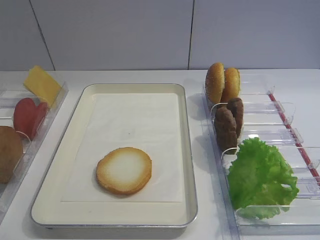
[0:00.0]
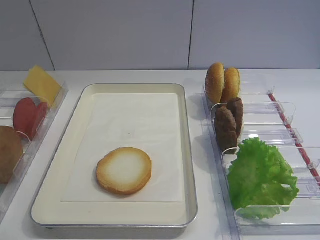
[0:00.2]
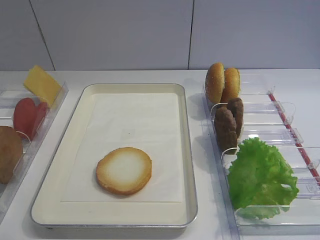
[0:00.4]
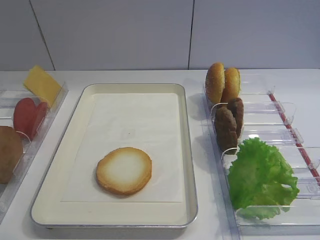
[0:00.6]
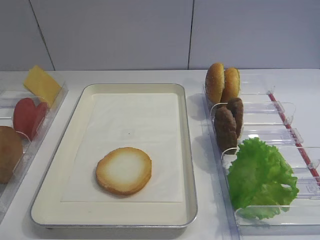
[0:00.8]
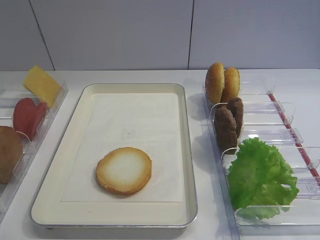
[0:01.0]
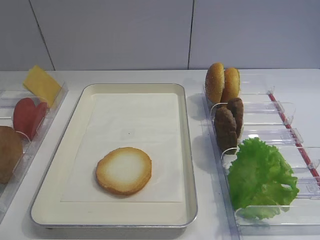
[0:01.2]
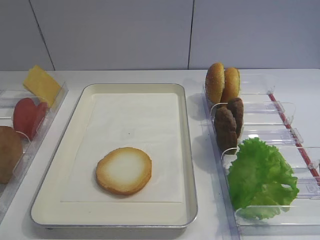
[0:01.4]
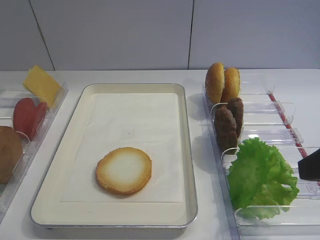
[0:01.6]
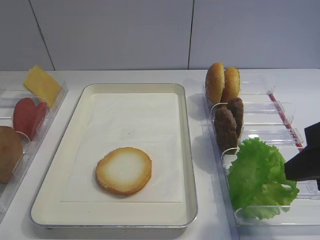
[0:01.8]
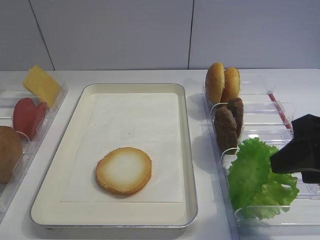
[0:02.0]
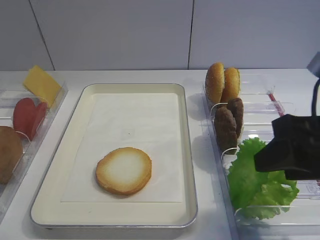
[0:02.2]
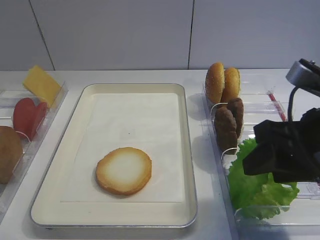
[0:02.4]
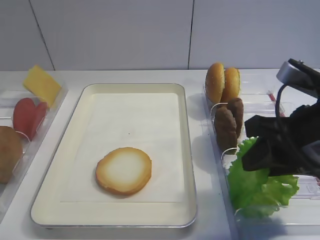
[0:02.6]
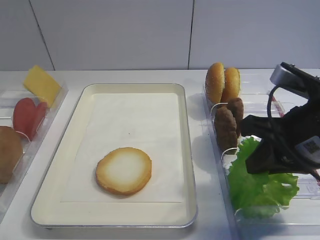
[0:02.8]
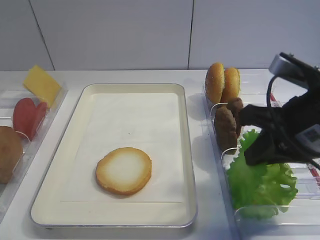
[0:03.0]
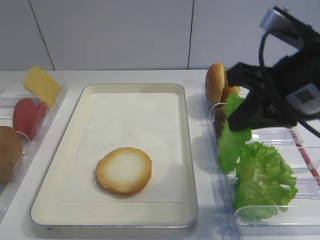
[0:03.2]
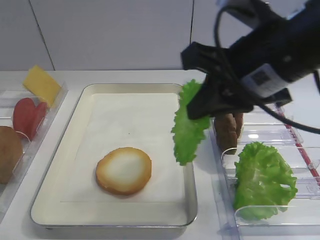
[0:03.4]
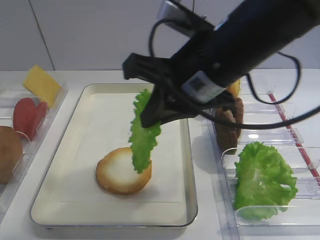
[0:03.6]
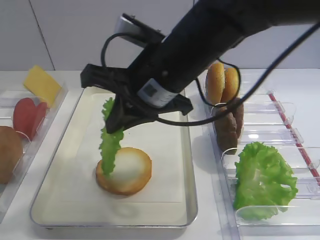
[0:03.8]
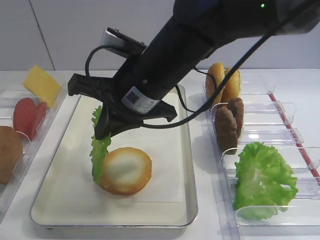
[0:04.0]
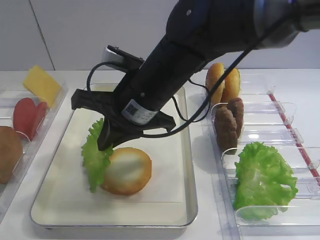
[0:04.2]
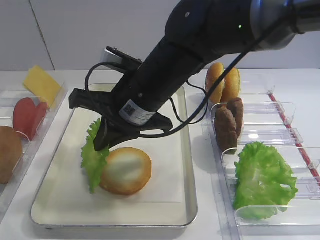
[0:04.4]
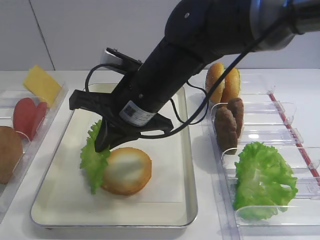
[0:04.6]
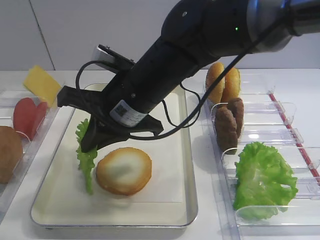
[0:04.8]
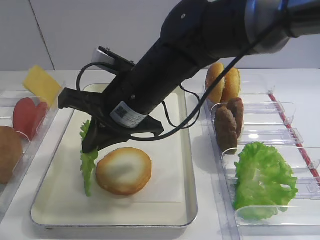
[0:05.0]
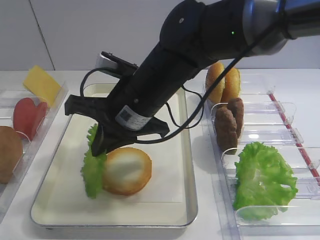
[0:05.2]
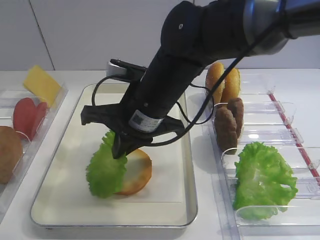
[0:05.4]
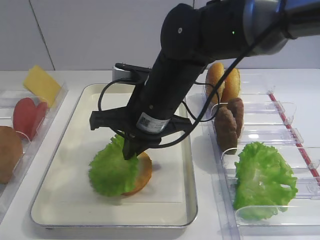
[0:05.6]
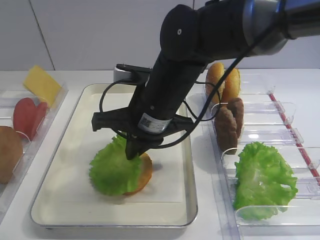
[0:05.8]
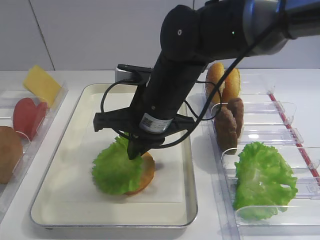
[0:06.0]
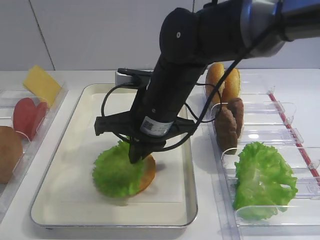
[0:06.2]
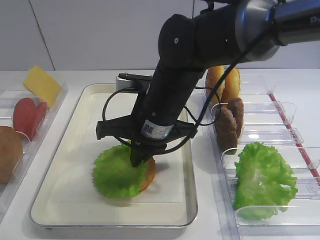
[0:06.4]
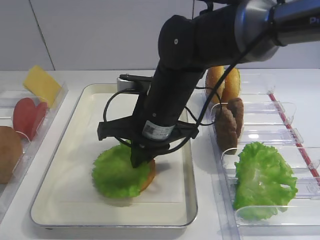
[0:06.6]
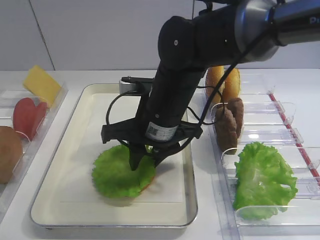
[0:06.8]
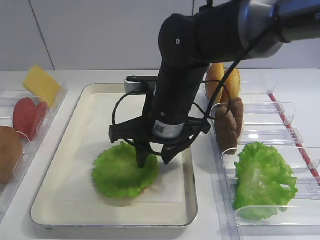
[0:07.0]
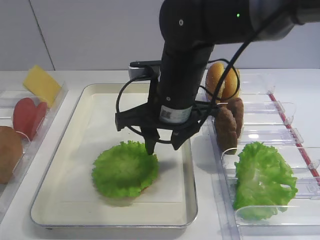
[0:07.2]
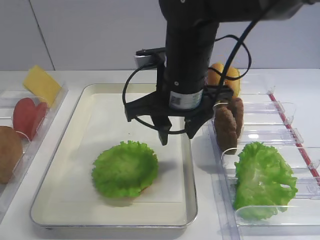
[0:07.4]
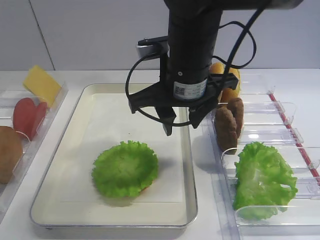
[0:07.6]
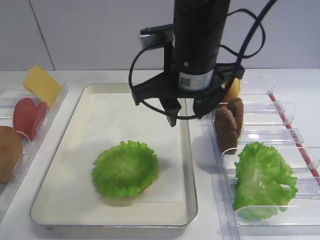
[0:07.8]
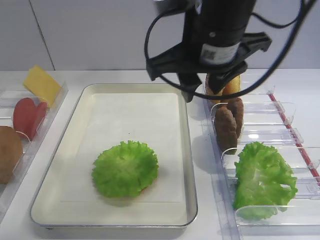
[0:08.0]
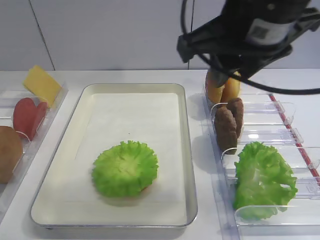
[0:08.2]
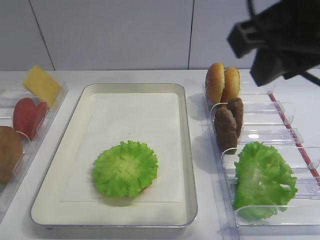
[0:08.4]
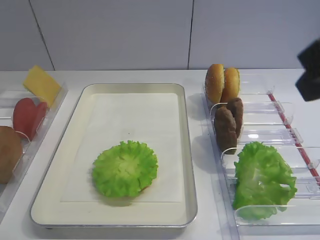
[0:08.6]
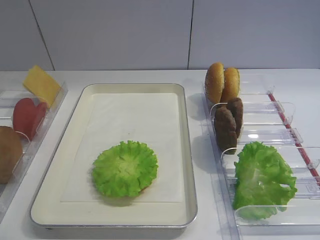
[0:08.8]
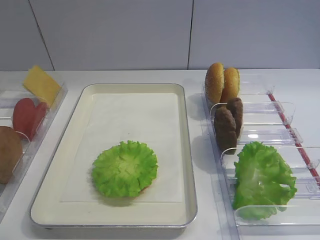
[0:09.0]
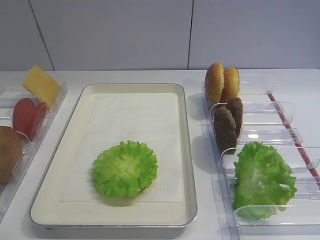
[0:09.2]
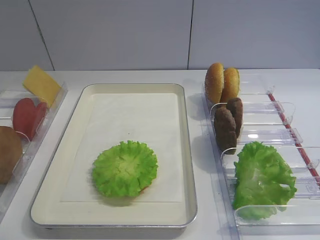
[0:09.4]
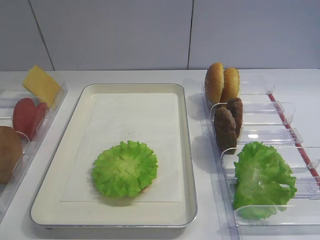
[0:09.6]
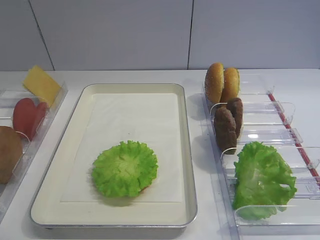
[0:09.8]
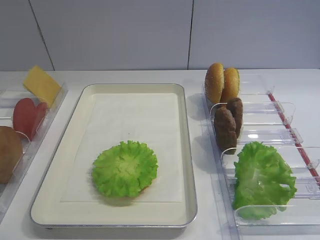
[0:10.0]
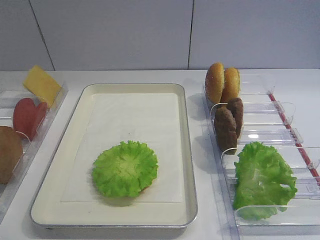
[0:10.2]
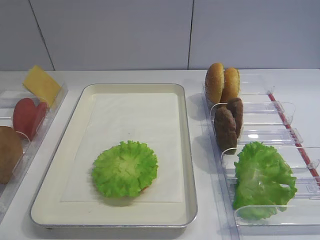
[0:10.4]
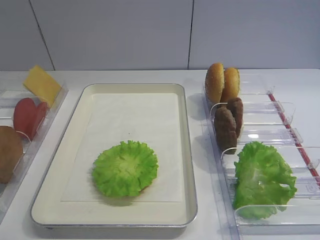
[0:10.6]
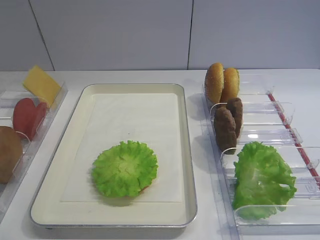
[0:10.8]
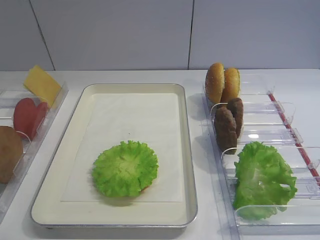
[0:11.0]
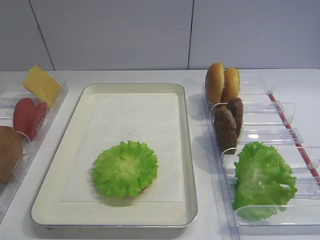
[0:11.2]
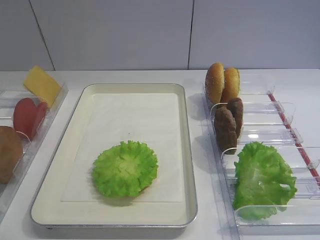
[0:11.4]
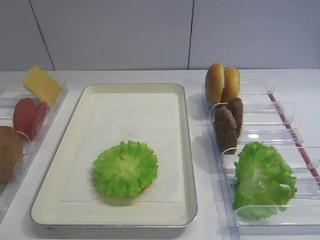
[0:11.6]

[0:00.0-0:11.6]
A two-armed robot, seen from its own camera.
Step, 0:00.0 to 0:03.0: Pick up the lettuce leaf with the right gripper.
Step, 0:03.2 to 0:07.0: Place the lettuce leaf on the bread slice with the right gripper.
0:01.4 to 0:02.8: The right gripper is displaced forward and downward by about 10 cm, and closes its fingers.
0:02.8 to 0:04.4: The right gripper heads to the left and forward, covering about 20 cm.
0:04.4 to 0:05.8: The grippers make only small movements.
0:05.8 to 0:07.2: The right gripper opens its fingers.
0:07.2 to 0:08.8: The right gripper goes some 30 cm to the right, backward and upward.

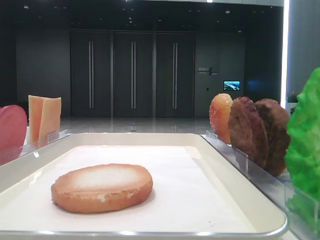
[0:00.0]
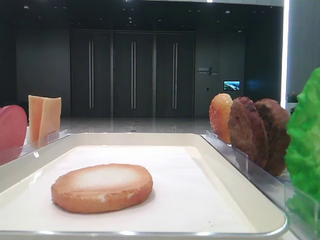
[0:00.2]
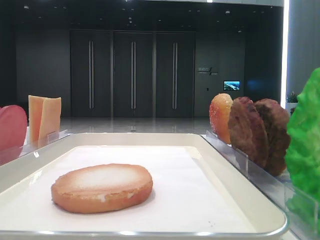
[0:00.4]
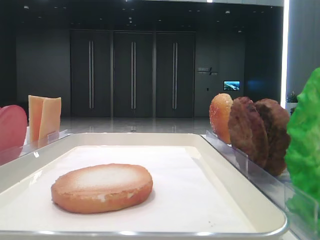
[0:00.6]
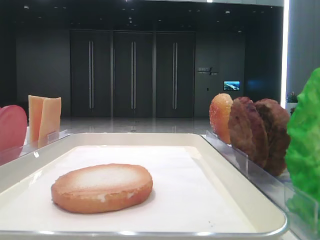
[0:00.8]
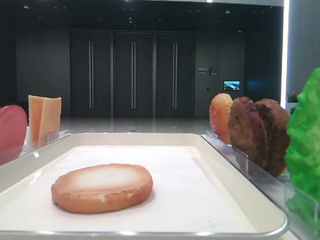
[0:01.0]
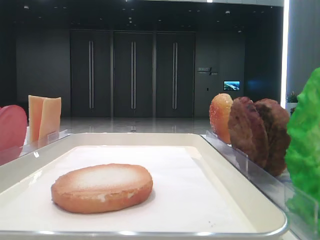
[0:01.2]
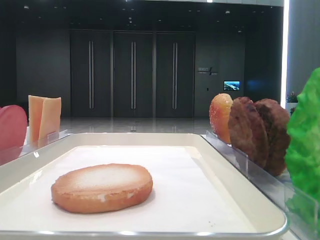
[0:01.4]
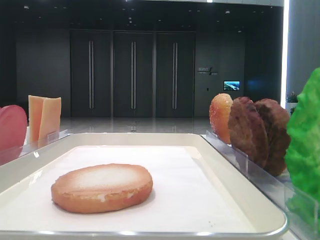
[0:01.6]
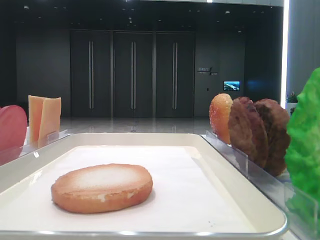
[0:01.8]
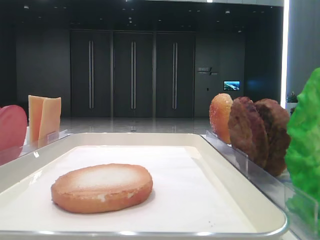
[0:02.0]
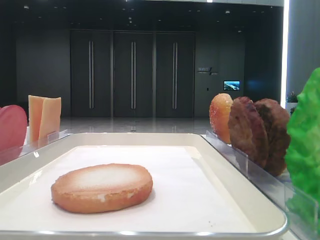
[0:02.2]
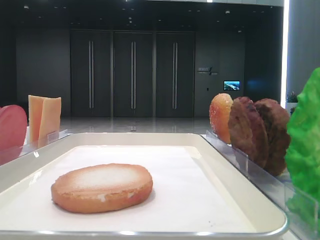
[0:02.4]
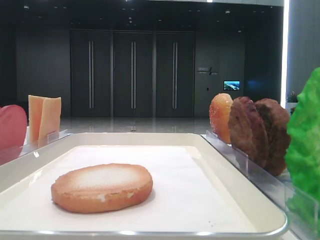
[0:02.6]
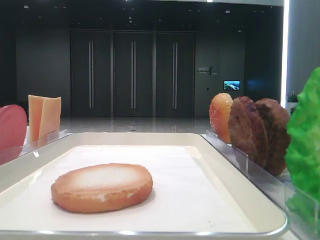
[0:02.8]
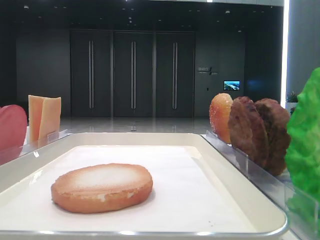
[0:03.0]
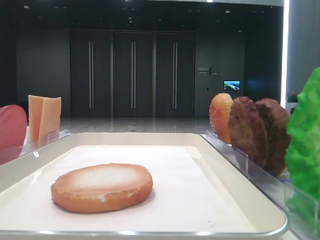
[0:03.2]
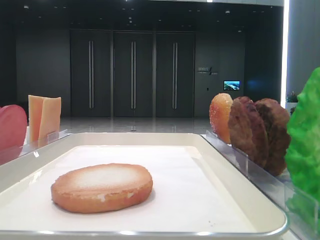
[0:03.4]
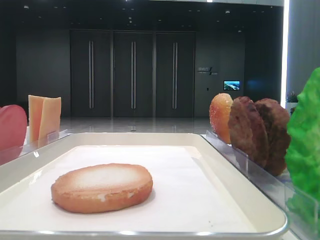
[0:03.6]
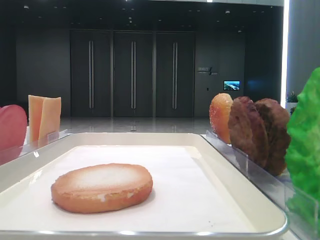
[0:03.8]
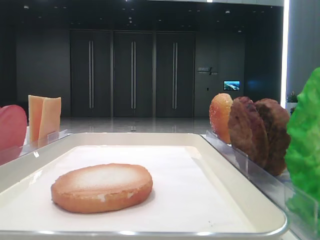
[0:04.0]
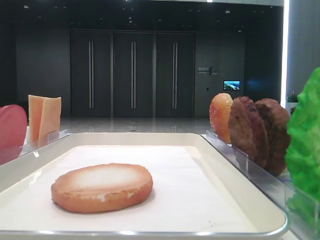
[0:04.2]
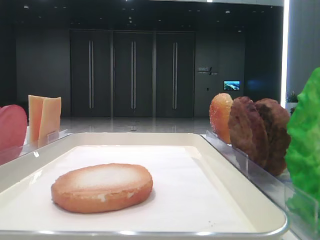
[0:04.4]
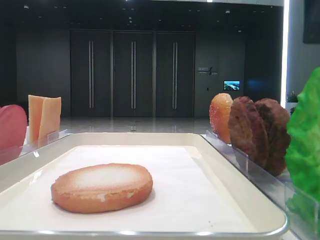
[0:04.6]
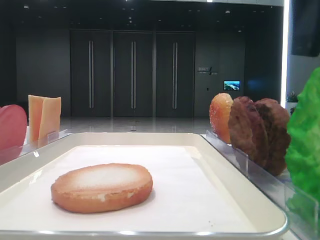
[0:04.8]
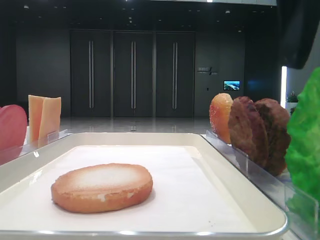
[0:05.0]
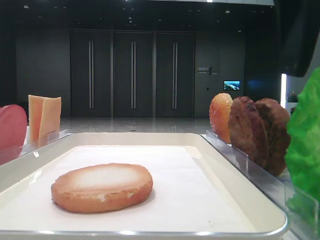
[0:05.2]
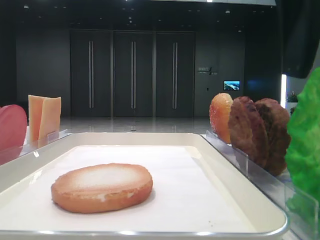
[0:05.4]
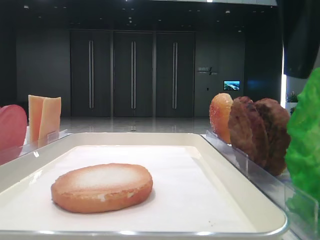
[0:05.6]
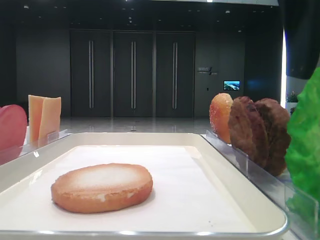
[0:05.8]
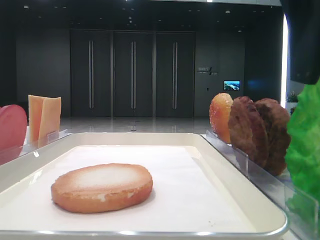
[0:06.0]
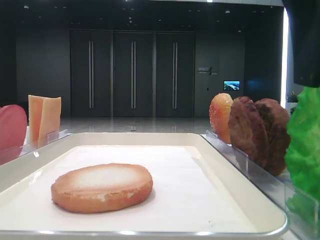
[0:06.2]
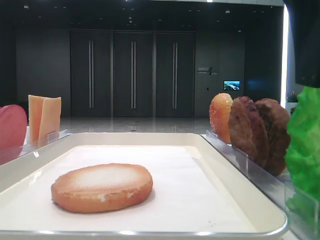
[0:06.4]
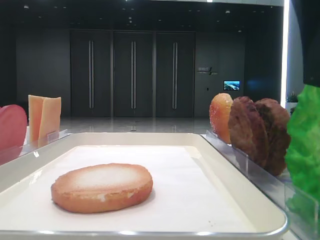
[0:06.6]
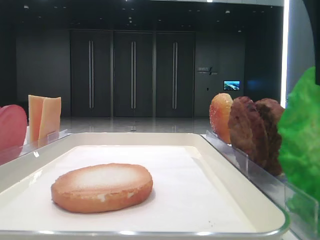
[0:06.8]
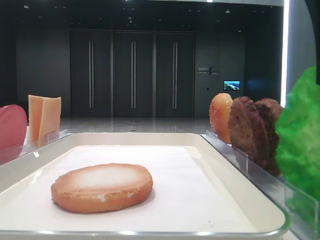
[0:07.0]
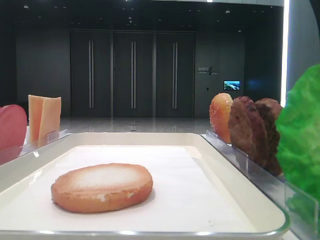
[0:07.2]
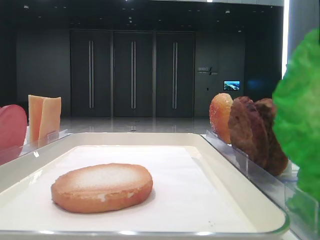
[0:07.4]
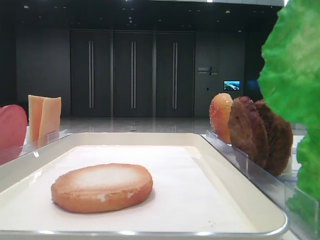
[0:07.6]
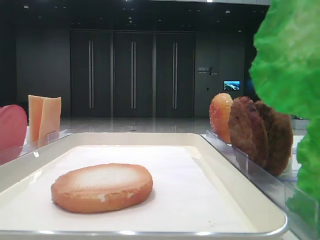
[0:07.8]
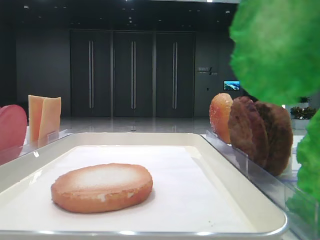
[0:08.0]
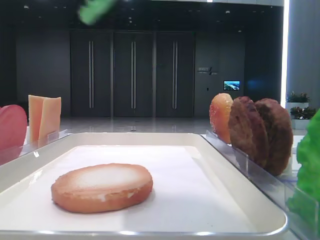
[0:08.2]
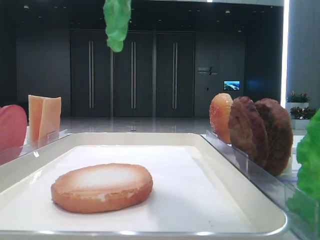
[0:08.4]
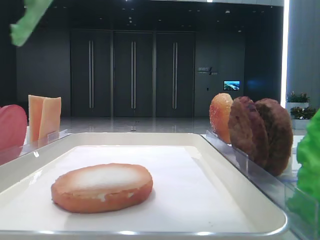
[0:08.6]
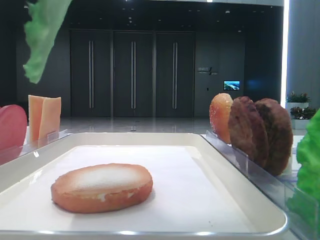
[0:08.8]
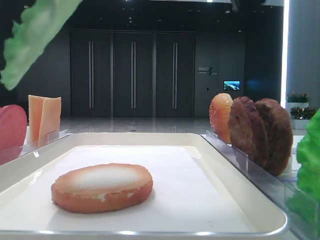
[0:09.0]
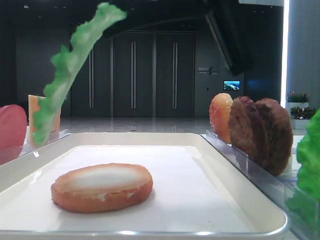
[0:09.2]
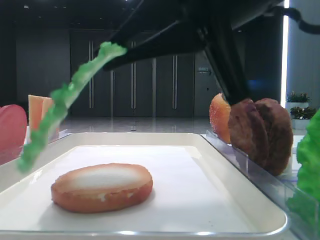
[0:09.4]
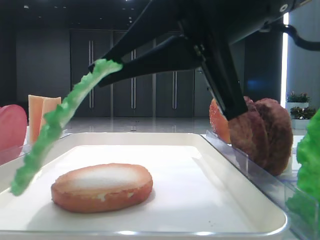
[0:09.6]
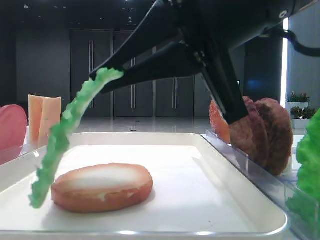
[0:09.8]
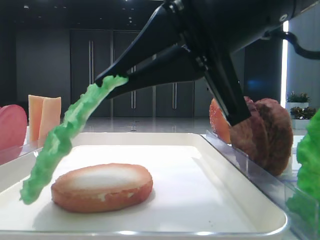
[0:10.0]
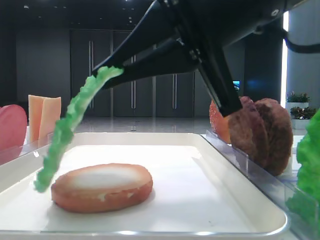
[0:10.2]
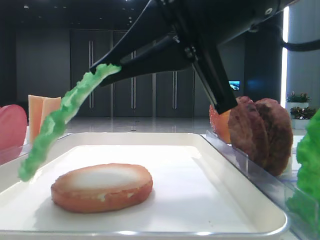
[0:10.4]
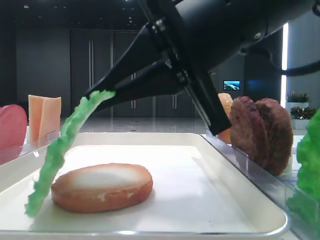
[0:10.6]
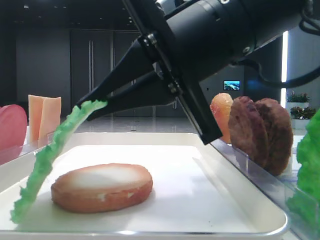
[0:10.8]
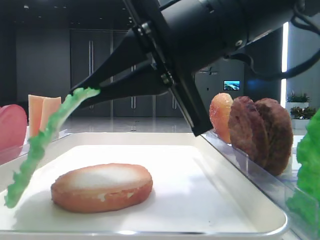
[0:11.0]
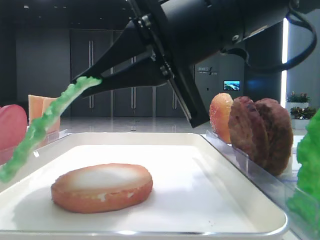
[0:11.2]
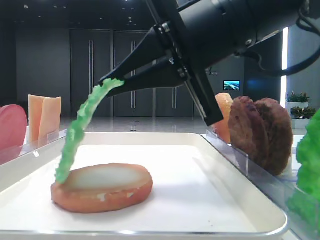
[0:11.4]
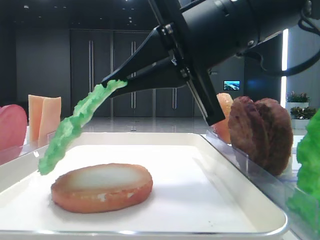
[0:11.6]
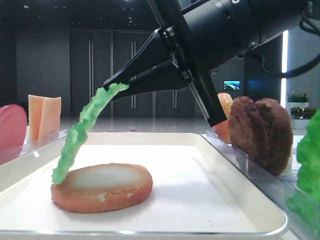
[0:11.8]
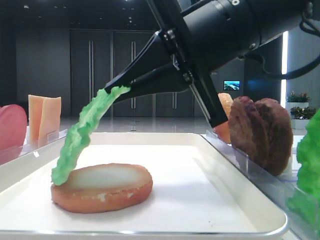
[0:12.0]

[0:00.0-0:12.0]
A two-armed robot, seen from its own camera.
Step, 0:00.0 to 0:07.0: Grab the lettuce leaf with the right hand.
0:04.4 to 0:06.0: The grippers make only small movements.
0:06.0 to 0:07.6: The right gripper travels upward by roughly 5 cm, and closes its fingers.
0:07.6 to 0:09.0: The right gripper moves to the left, approximately 5 cm.
0:09.0 to 0:10.4: The right gripper shifts about 5 cm downward.
